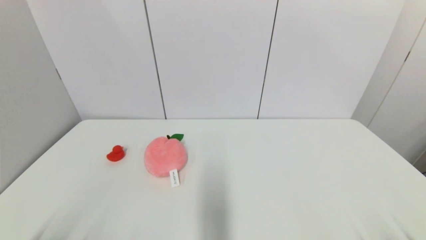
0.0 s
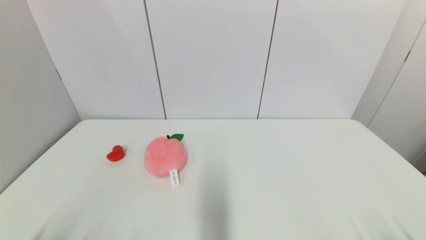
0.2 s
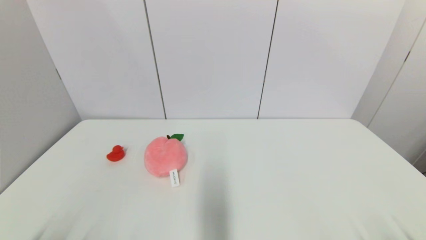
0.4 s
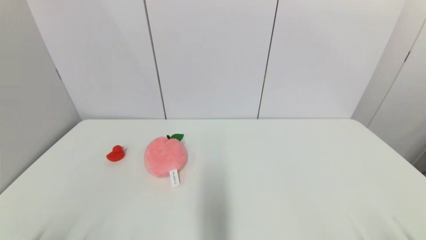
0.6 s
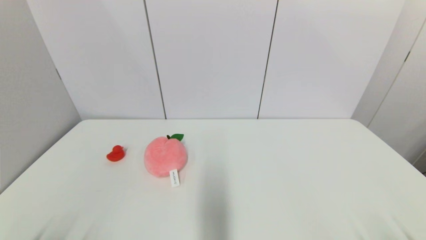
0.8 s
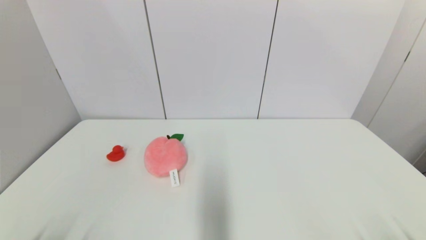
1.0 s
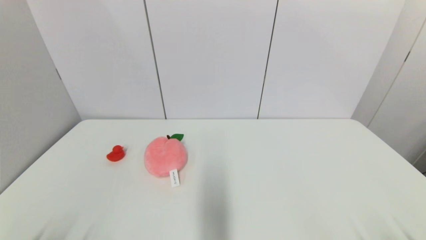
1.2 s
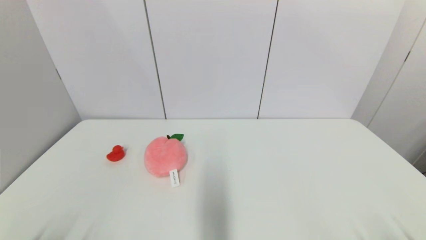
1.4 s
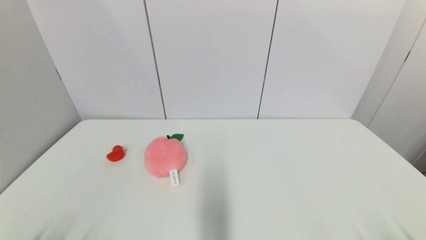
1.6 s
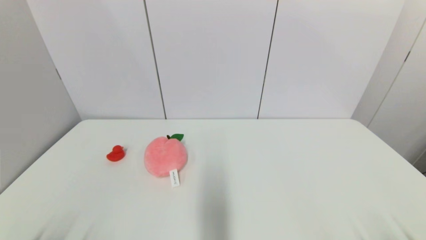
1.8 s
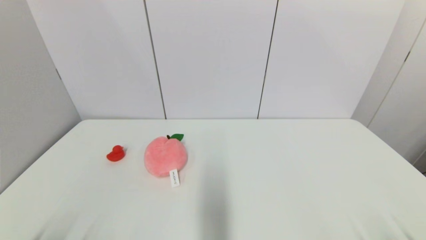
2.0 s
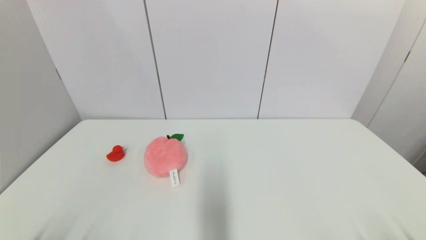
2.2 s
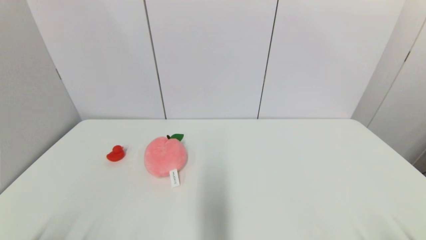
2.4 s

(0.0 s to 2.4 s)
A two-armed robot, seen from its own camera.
0.0 s - 2.4 s: Both grippers stay put.
